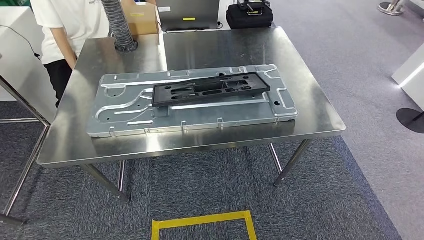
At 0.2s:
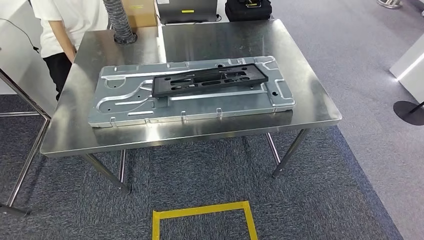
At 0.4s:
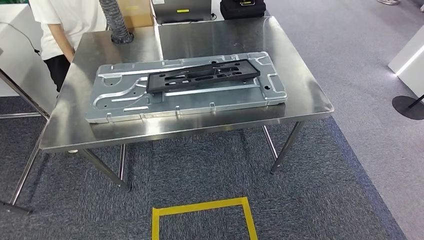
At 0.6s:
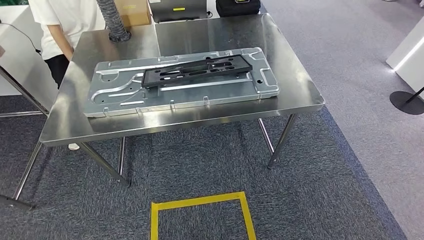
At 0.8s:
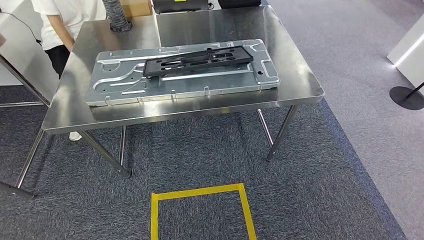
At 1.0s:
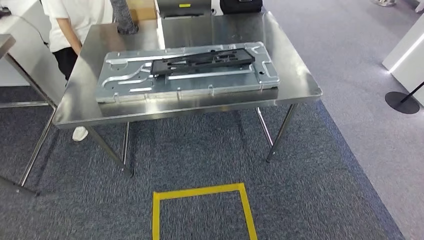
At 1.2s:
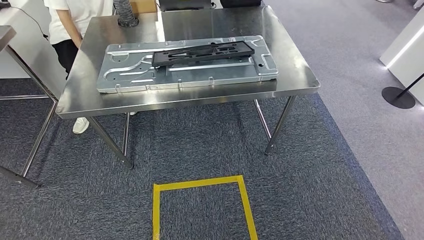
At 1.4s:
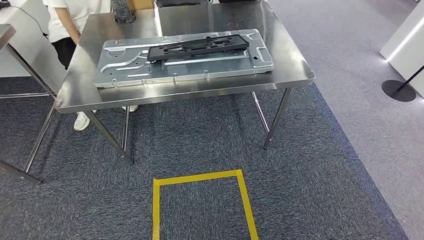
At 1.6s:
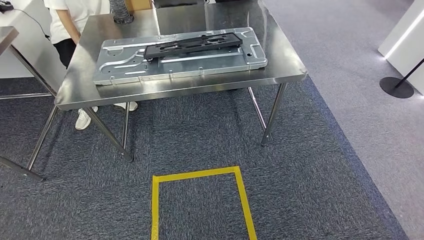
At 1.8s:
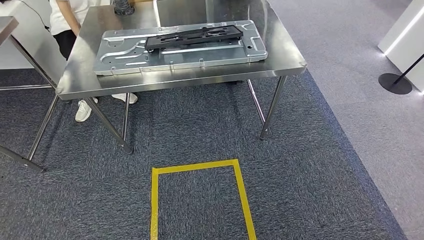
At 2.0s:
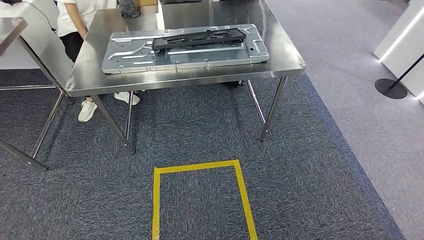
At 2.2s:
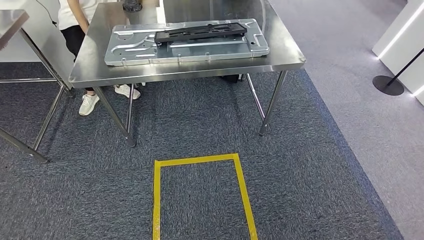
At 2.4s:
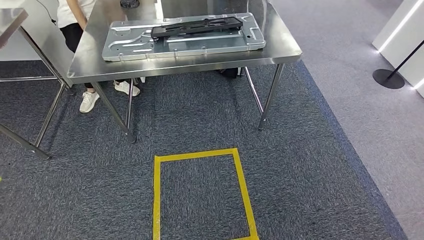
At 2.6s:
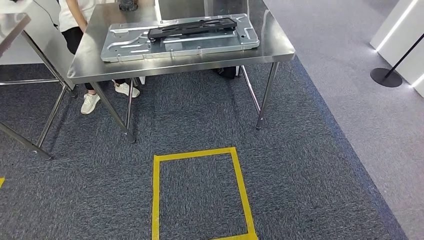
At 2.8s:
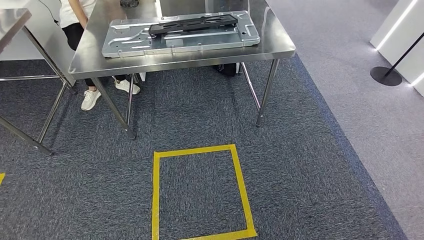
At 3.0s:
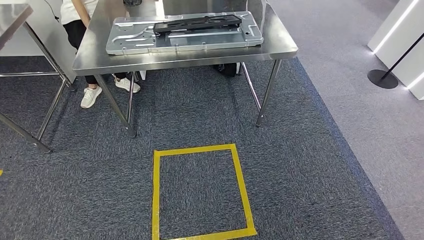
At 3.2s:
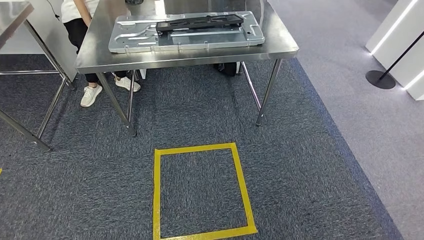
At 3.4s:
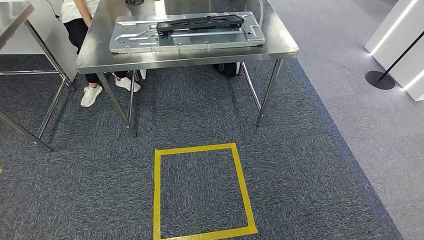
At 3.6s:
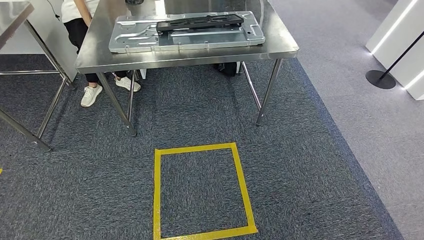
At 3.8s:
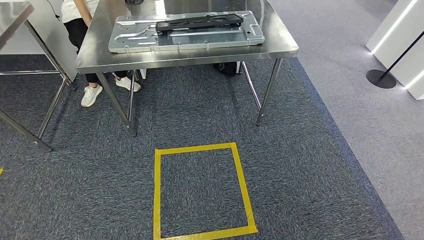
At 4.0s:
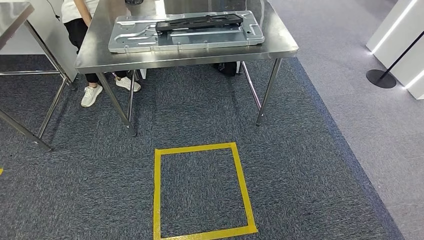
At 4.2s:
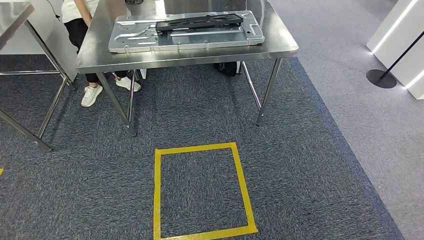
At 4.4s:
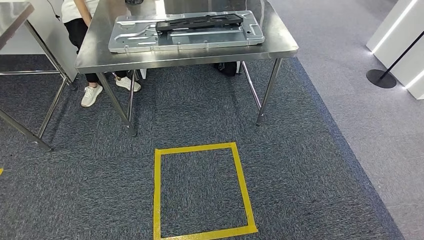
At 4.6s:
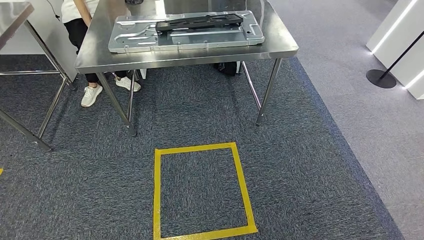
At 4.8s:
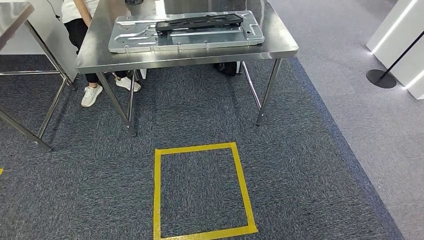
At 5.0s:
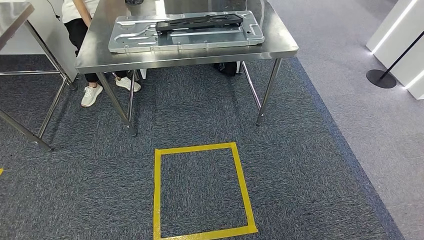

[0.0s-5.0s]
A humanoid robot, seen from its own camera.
Step, 0.0s to 5.0s: Move to the initial position of the shelf.

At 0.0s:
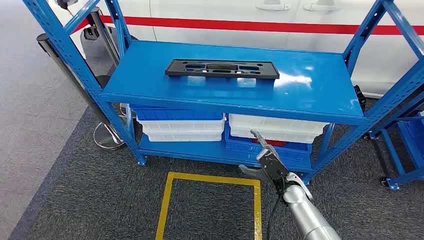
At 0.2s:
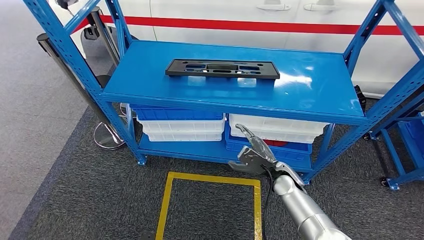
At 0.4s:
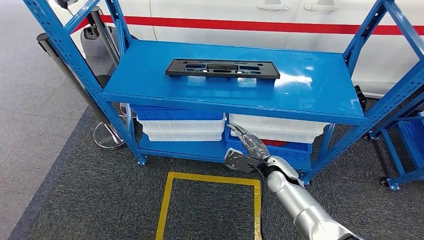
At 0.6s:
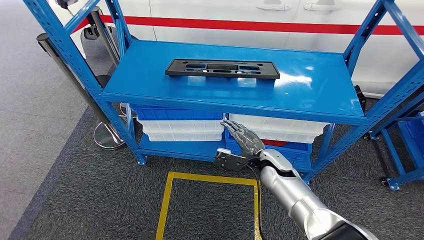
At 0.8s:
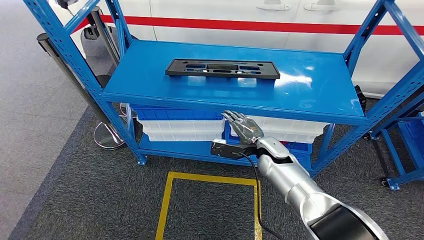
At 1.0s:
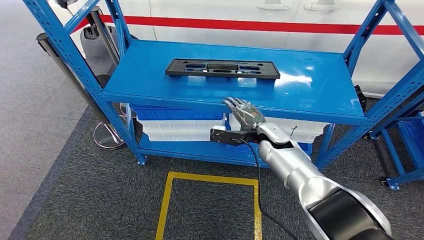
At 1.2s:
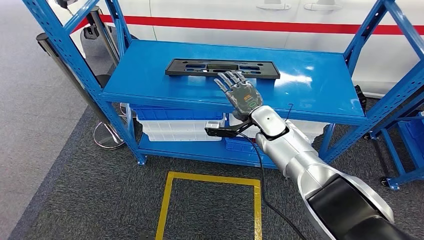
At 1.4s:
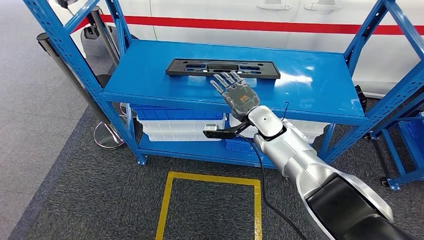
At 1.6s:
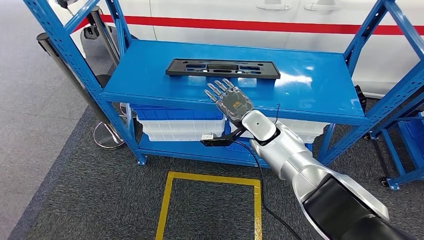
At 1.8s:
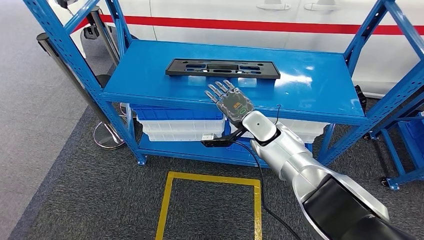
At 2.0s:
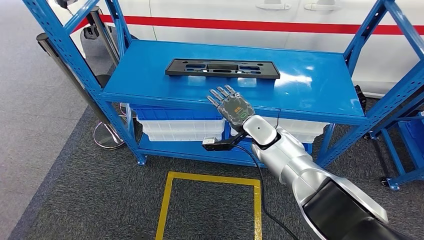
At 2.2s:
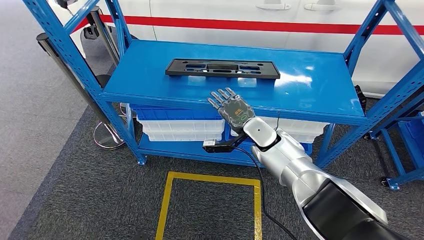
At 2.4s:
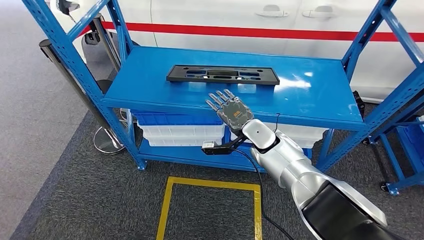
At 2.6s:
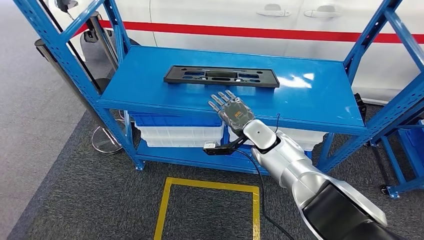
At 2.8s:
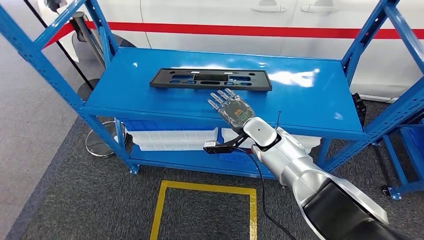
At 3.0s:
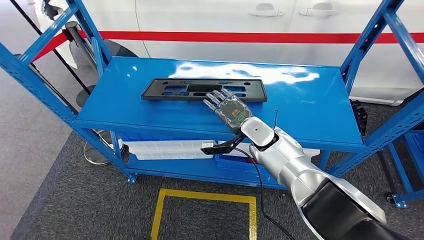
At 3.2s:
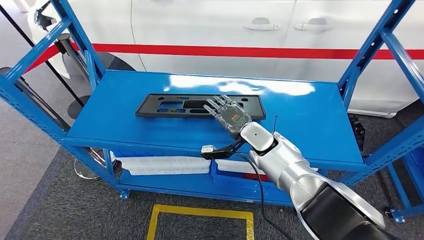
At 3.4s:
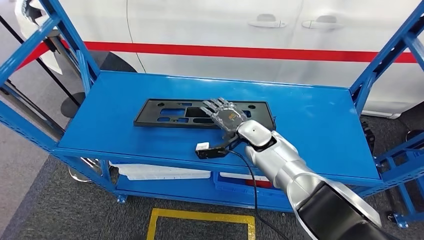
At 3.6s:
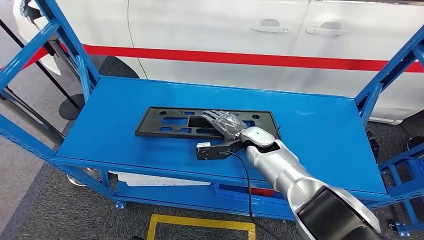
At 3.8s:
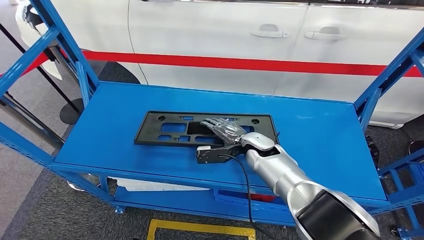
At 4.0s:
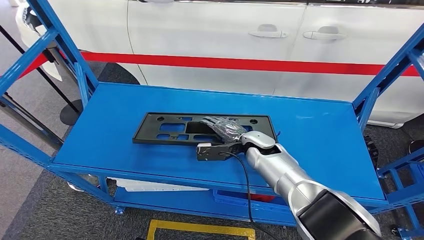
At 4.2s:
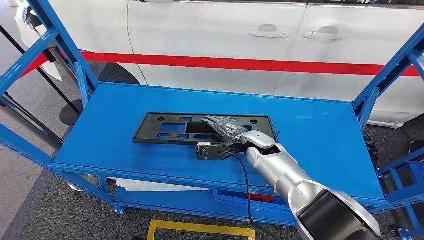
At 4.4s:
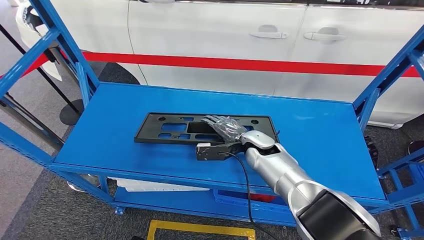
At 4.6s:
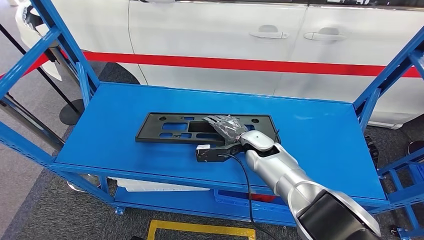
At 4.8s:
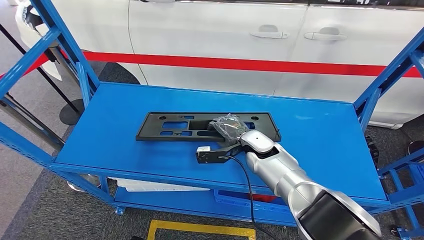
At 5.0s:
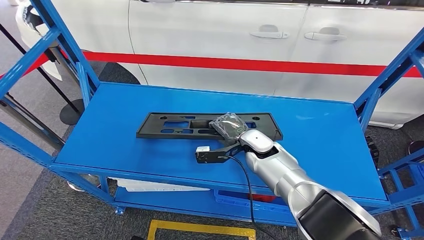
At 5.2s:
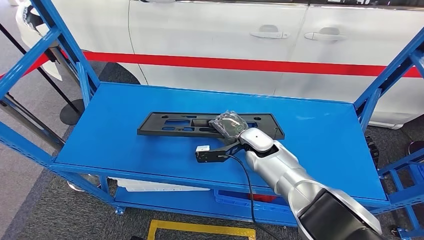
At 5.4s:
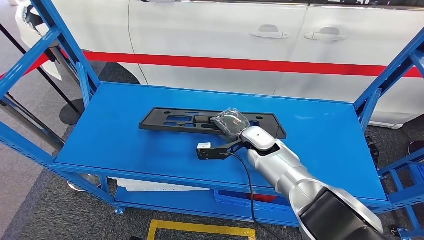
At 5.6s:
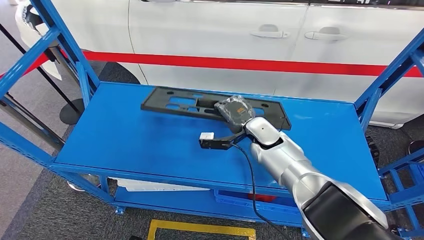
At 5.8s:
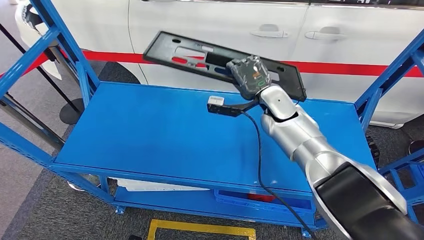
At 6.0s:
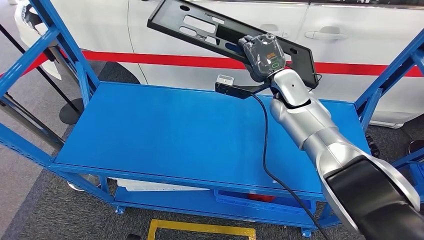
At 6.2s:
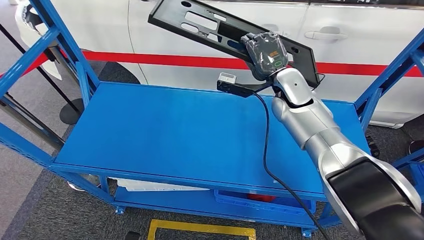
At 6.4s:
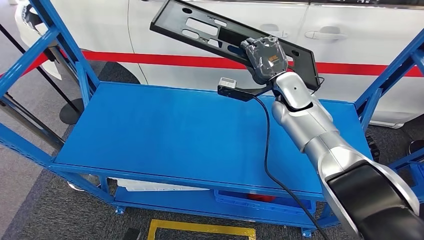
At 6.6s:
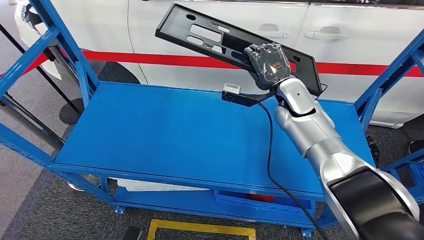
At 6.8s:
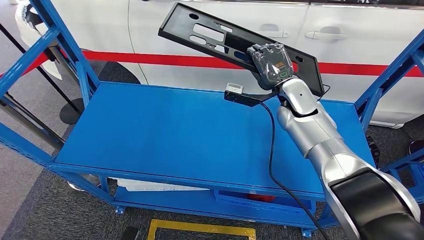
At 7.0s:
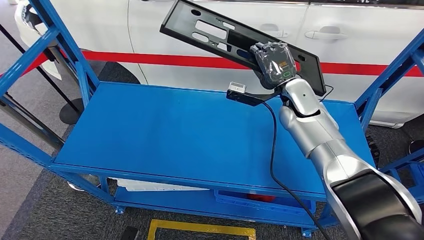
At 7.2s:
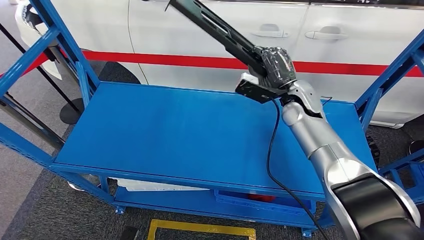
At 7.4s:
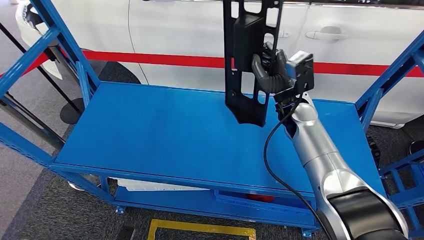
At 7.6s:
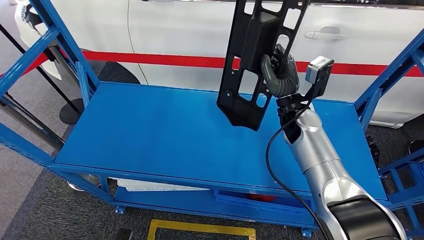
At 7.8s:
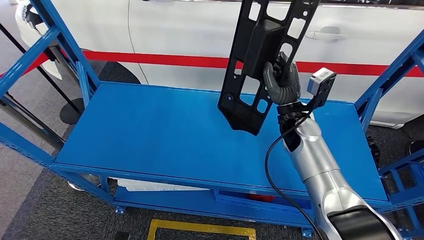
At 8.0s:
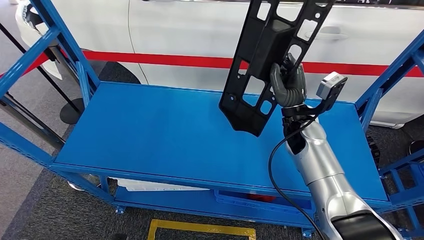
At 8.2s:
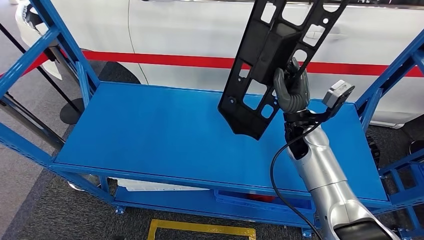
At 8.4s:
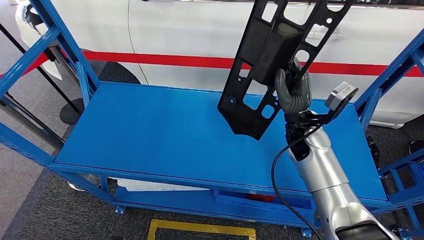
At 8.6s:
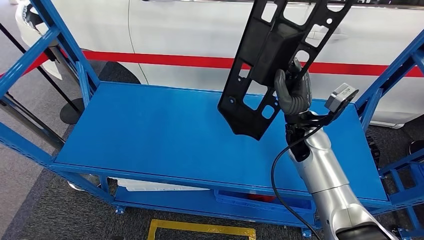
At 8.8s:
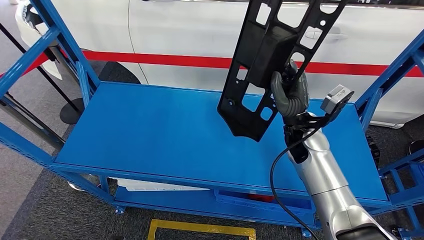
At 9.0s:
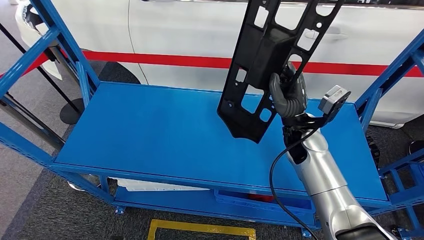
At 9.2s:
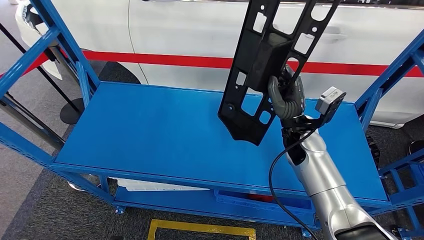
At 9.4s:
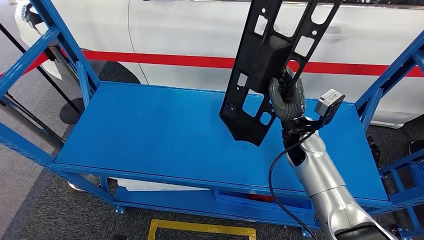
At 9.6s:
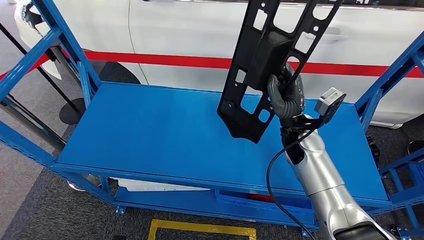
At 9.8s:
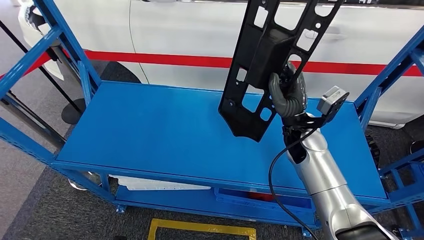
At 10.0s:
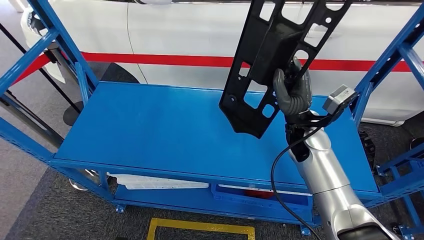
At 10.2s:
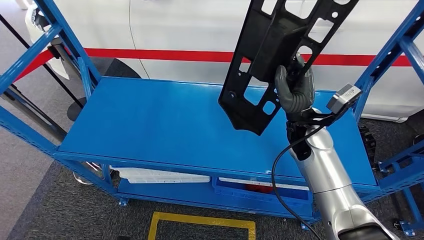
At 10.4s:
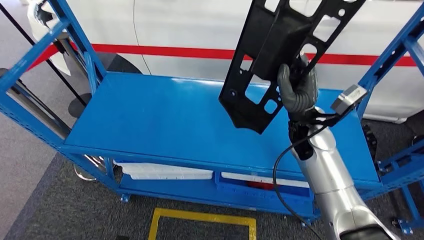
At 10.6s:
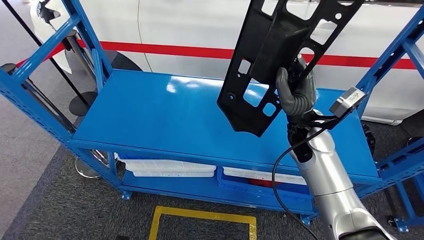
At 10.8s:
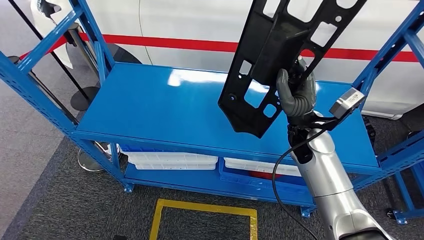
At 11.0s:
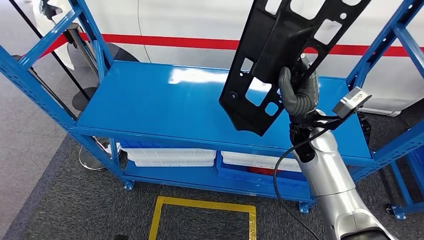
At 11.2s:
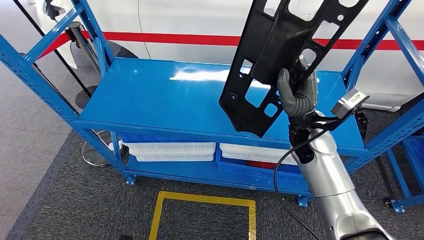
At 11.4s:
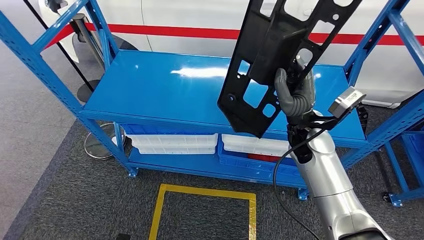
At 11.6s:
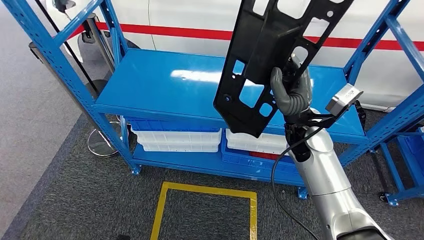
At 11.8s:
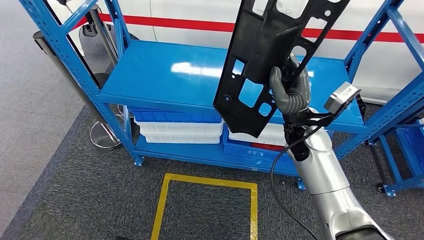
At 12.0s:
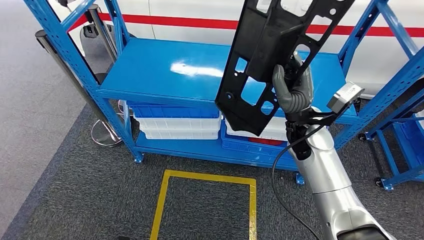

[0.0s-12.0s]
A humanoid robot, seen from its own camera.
Step, 0.0s to 6.8s: Pick up the large material from the shelf.
7.6s to 9.0s: There are only small adjustments of the hands.
